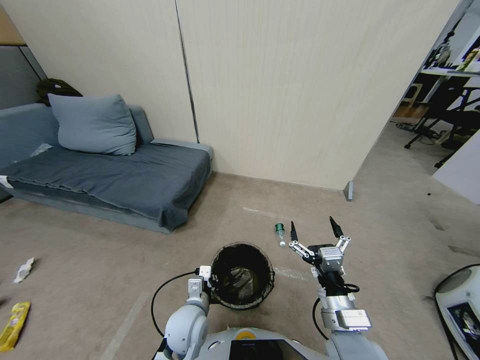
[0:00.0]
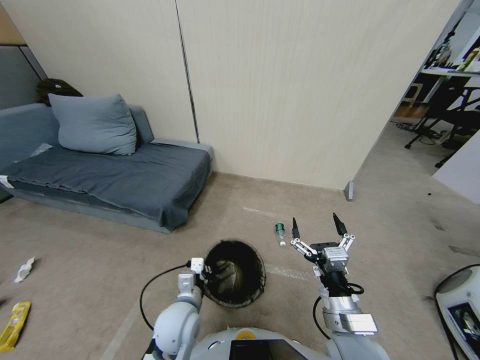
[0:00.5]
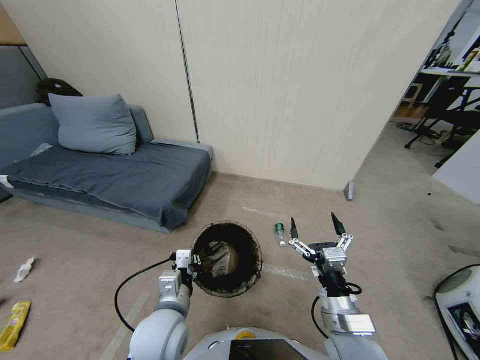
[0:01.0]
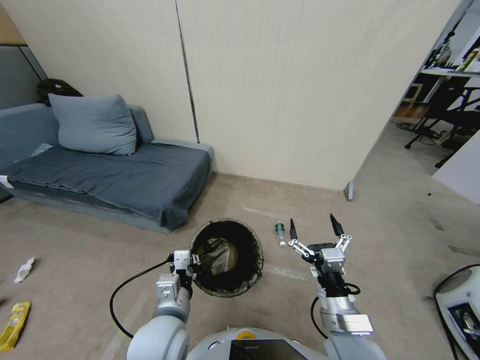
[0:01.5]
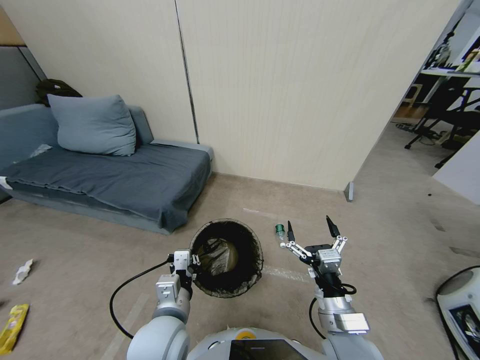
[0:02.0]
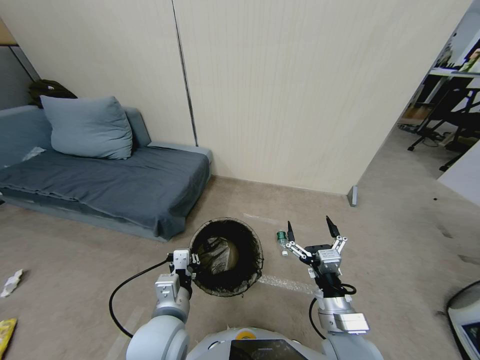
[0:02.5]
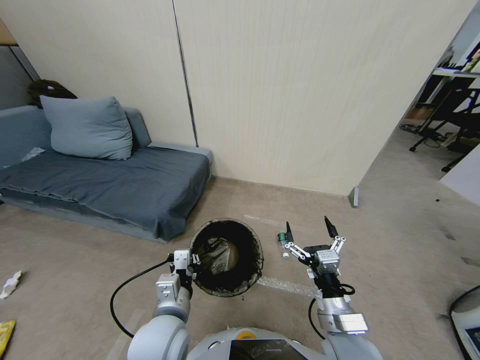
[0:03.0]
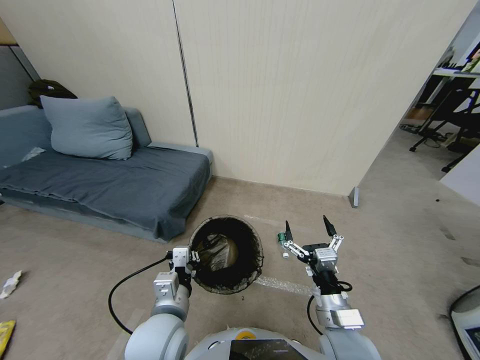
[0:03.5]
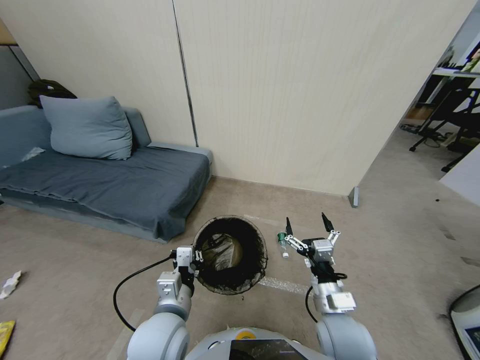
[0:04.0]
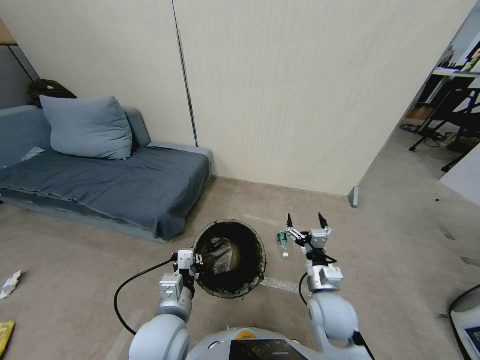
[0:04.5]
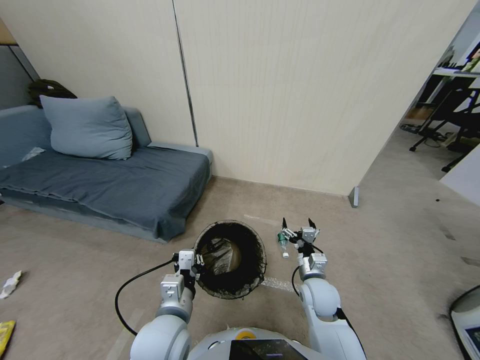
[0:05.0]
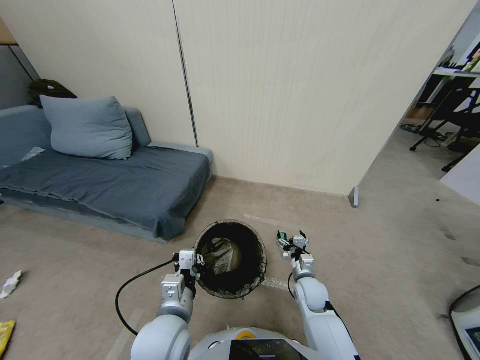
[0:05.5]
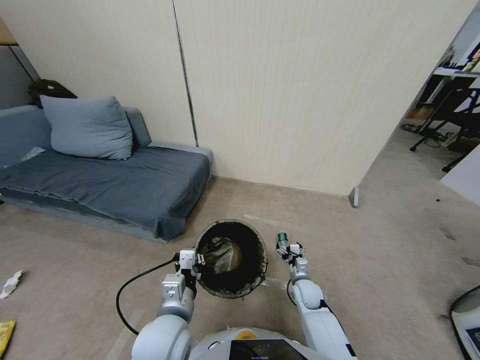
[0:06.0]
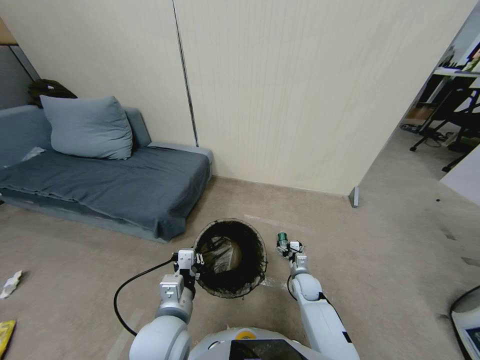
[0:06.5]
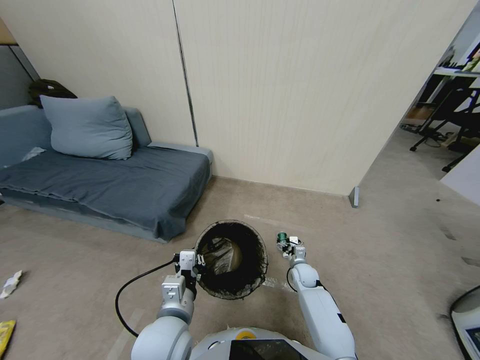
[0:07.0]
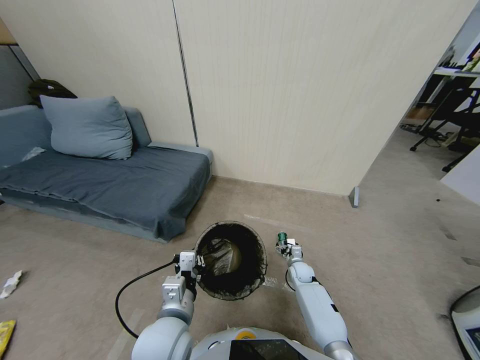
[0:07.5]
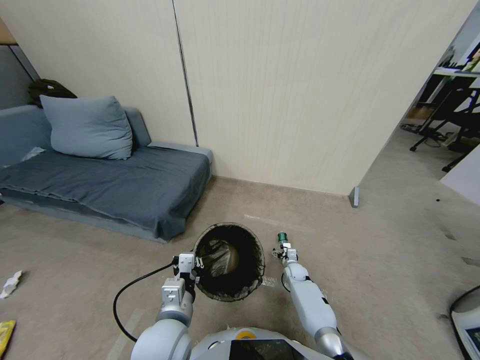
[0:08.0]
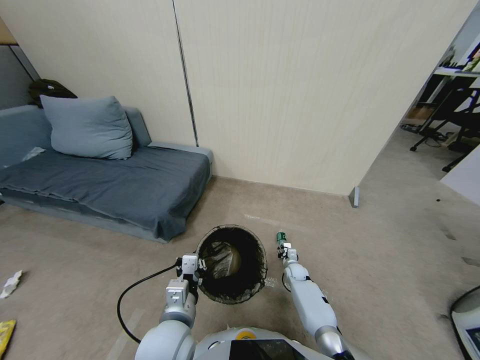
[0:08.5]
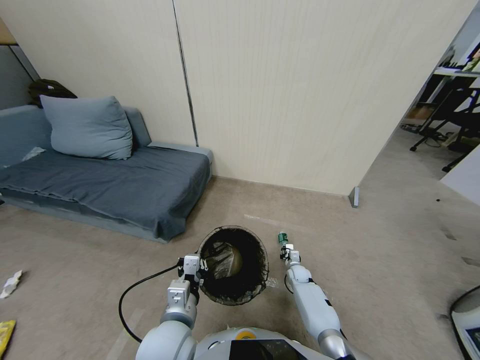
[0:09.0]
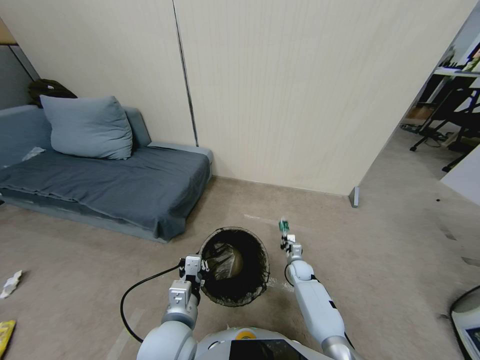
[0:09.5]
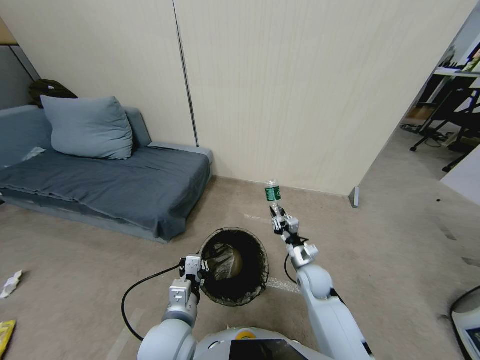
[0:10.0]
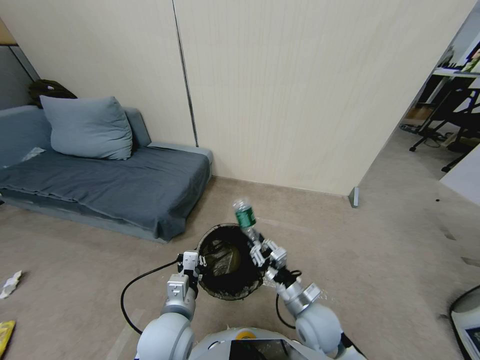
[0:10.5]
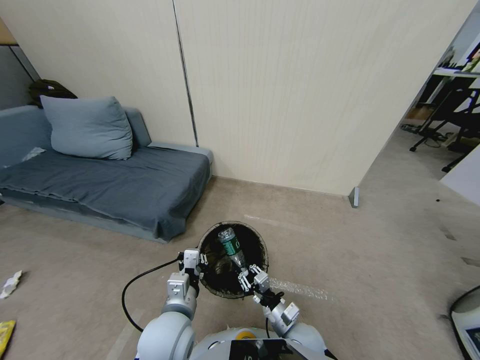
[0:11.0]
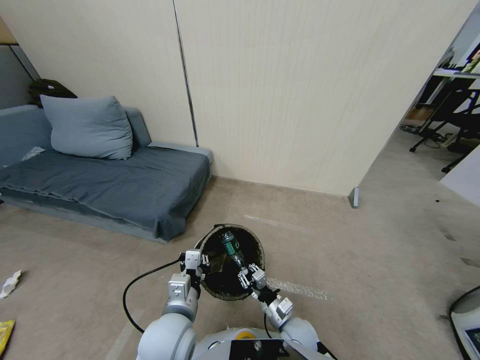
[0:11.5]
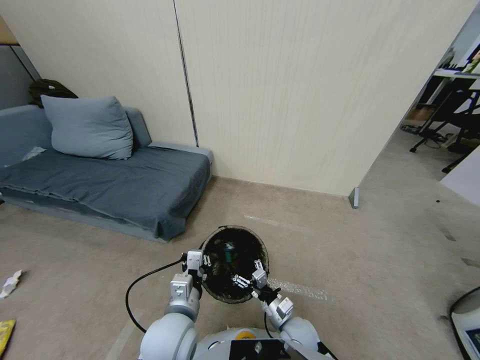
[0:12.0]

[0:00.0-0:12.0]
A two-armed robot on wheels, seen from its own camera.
Task of the whole recording: Pick up the trash bin, then pick up the garbage from the floor and place it into the trash bin.
0:00.0 to 0:02.0: The left gripper travels upward by roughly 10 cm.
0:02.0 to 0:04.0: The right gripper goes about 5 cm forward.
0:04.0 to 0:06.0: The right gripper shifts some 20 cm downward and forward.
0:06.0 to 0:08.0: The right gripper heads forward and downward, covering about 15 cm.
0:08.0 to 0:10.0: The right gripper moves upward and backward, some 25 cm, and closes.
0:10.0 to 0:12.0: The right gripper travels backward, to the left and downward by approximately 15 cm, and opens its fingers.

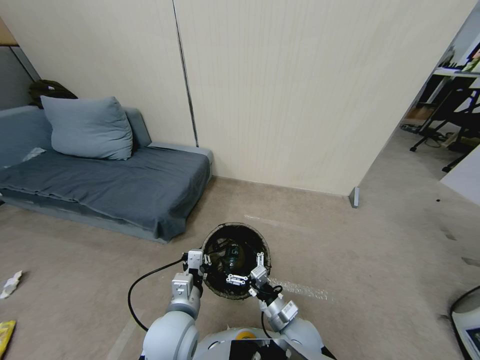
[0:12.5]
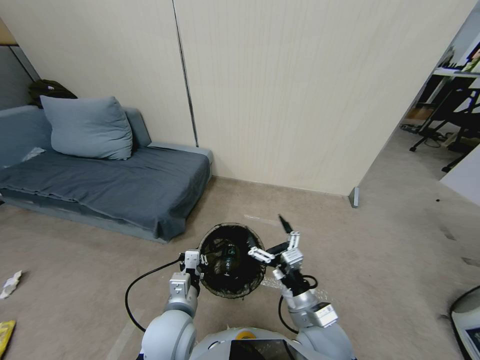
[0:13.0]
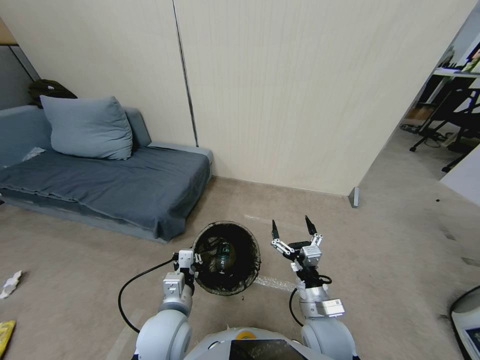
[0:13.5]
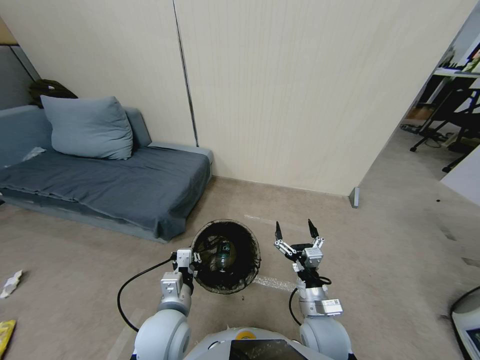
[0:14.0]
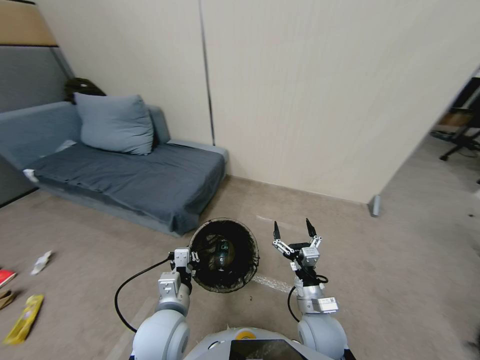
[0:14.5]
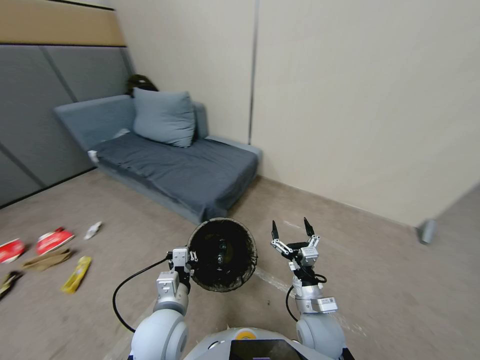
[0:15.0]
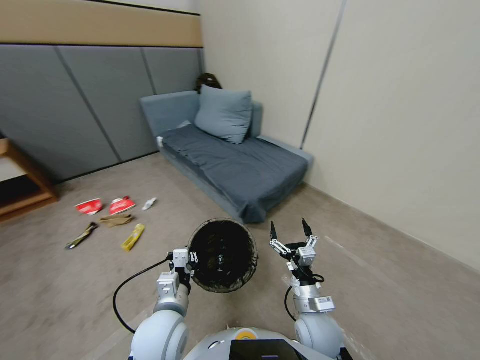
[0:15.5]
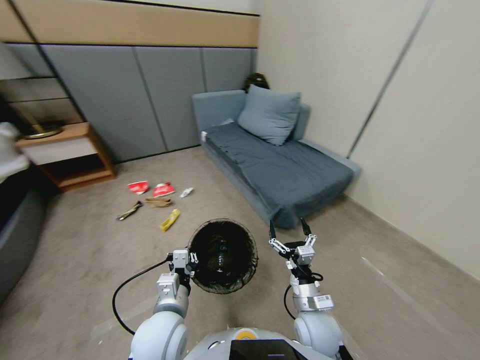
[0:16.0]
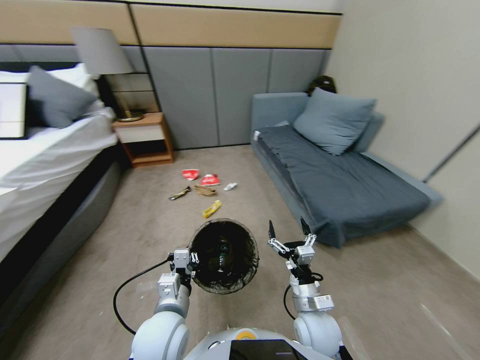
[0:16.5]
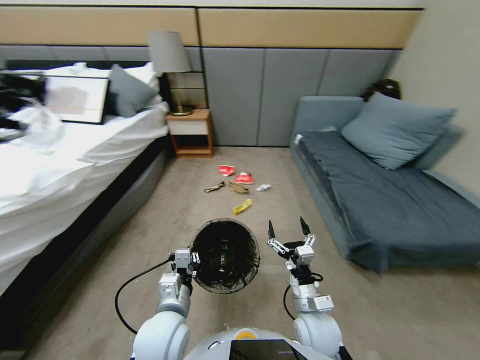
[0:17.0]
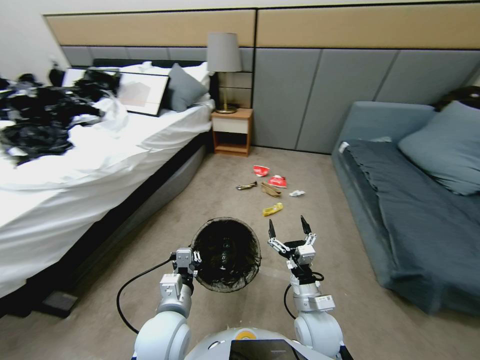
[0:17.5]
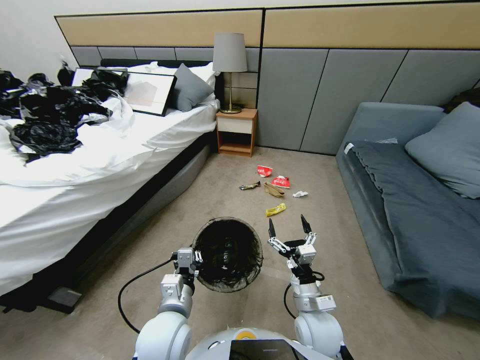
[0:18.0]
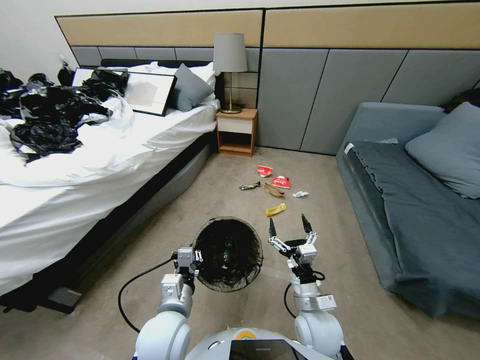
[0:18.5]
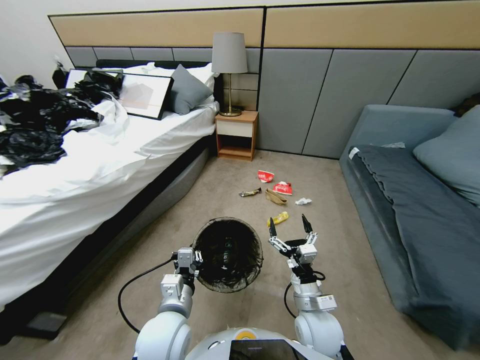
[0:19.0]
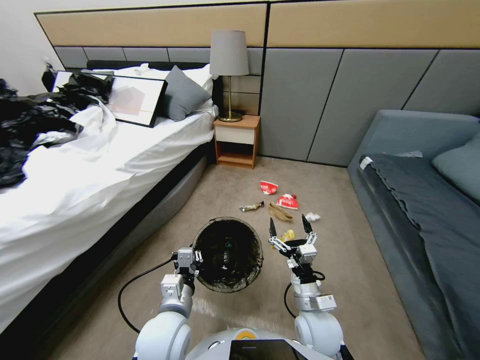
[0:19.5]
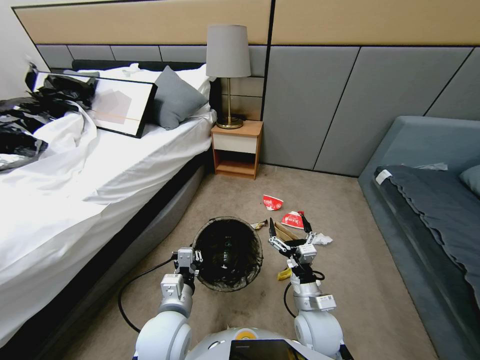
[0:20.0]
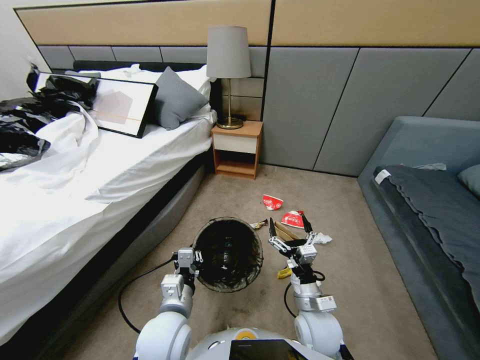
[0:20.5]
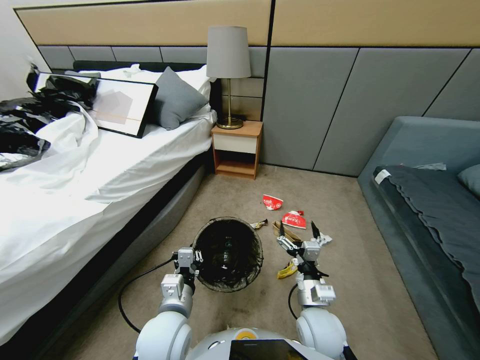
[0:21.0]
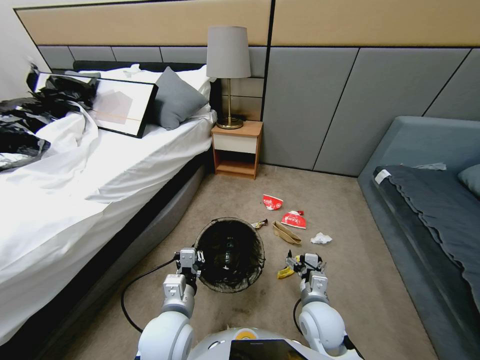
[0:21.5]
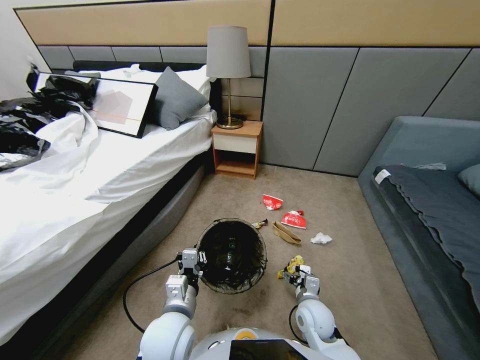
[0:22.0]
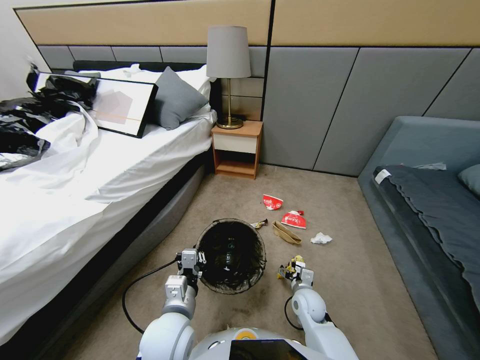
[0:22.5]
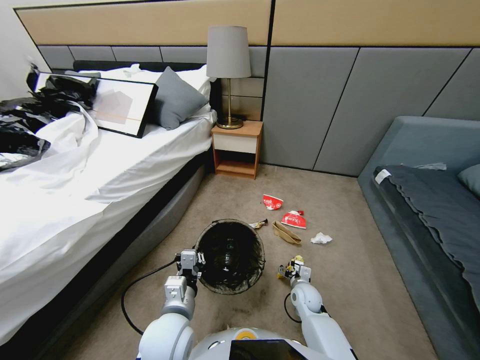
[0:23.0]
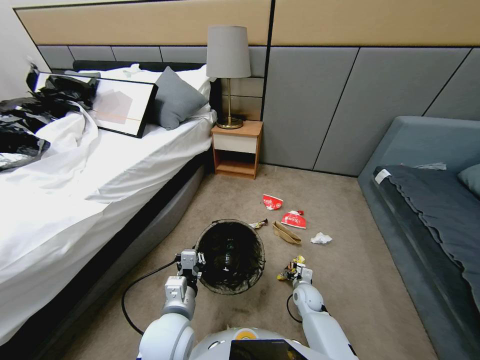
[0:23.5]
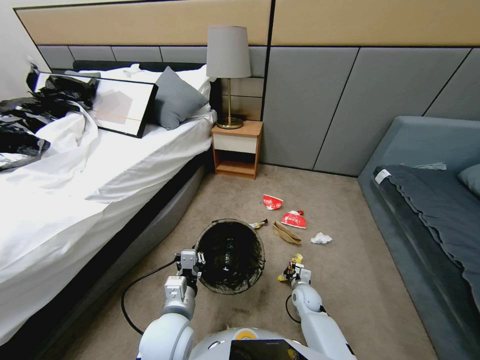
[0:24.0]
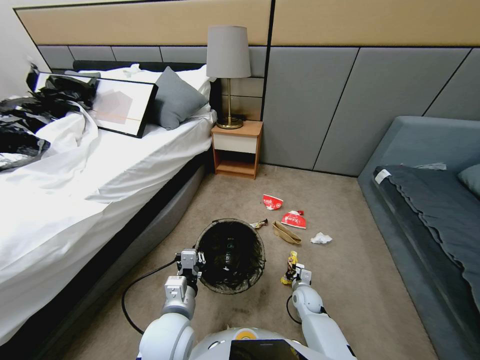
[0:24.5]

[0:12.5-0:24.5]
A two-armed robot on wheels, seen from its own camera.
Task of the whole recording: Pick up the trash bin, then pick up the garbage from the floor and place it into the trash bin.
0:12.5 to 0:14.5: The right gripper ends up some 5 cm from where it was.
0:20.5 to 0:22.5: The right gripper goes approximately 15 cm downward and forward.
0:22.5 to 0:24.5: The right gripper shifts roughly 10 cm downward, and closes.

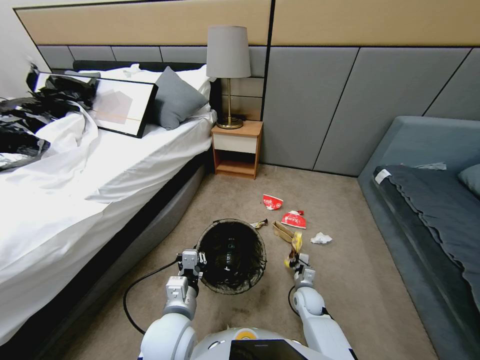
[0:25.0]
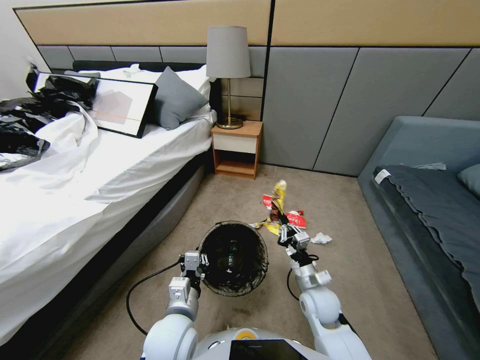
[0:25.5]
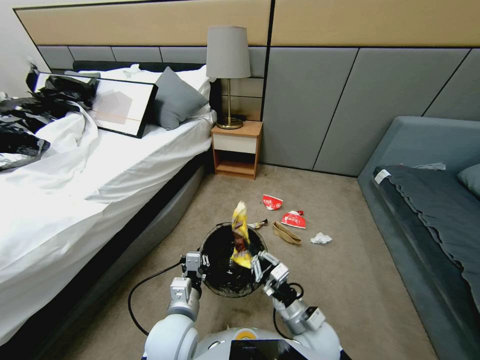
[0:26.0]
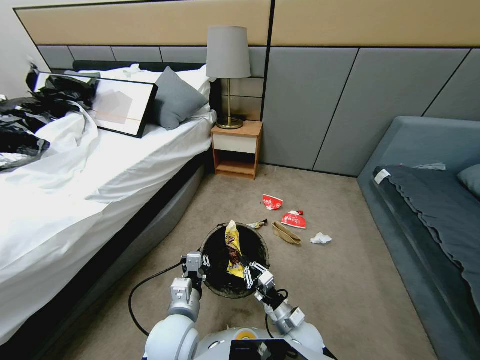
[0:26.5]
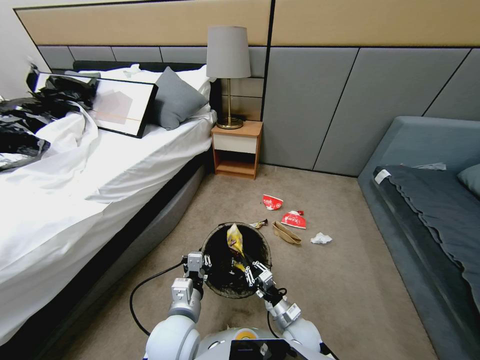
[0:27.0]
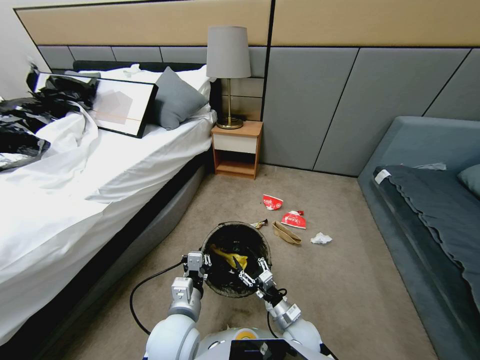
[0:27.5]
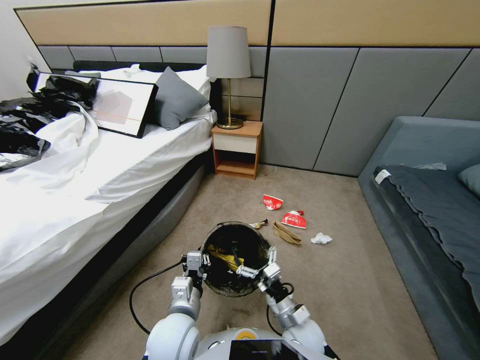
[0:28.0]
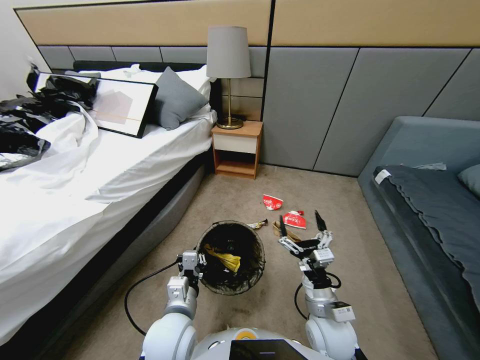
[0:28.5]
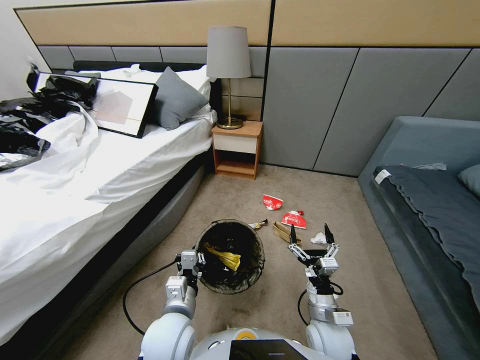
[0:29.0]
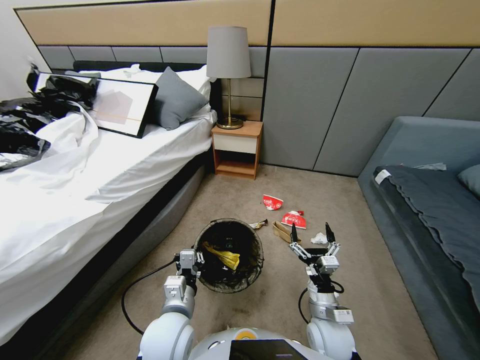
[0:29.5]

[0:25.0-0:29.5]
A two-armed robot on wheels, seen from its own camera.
Task of the whole recording: Pick up the trash bin, then pick up the garbage from the floor and place it into the trash bin.
0:25.0 to 0:27.0: The right gripper moves backward and to the left, about 15 cm, and reaches some 15 cm upward, then returns.
0:27.0 to 0:29.5: The right gripper shifts some 10 cm upward, and opens up.
